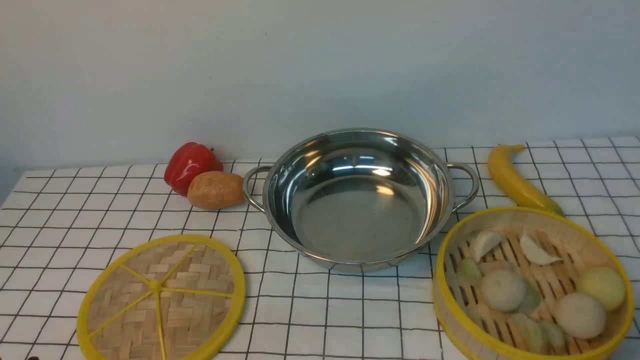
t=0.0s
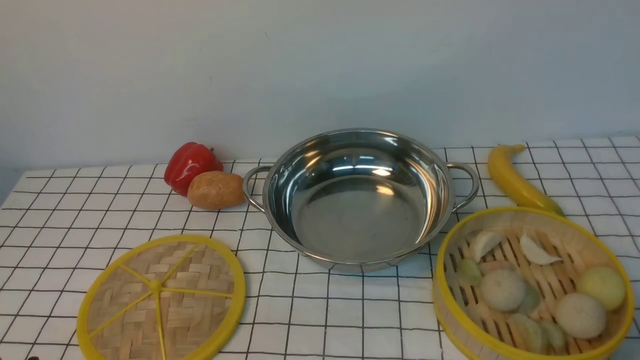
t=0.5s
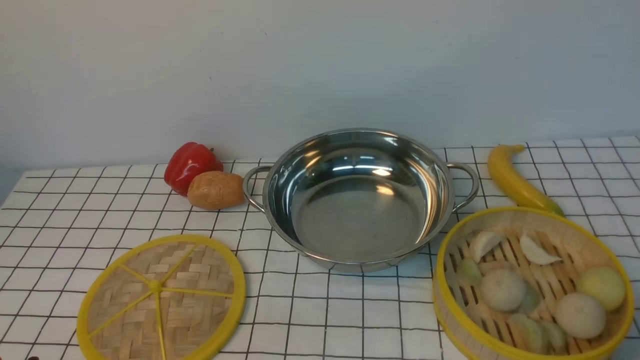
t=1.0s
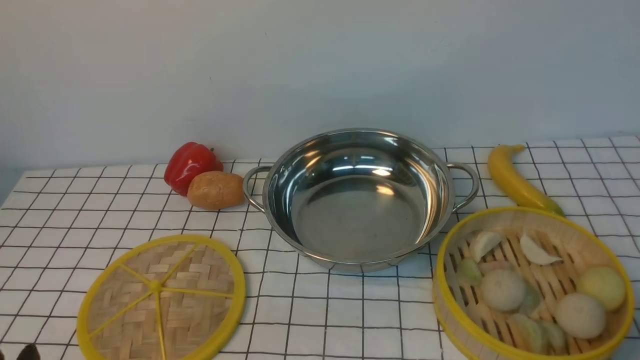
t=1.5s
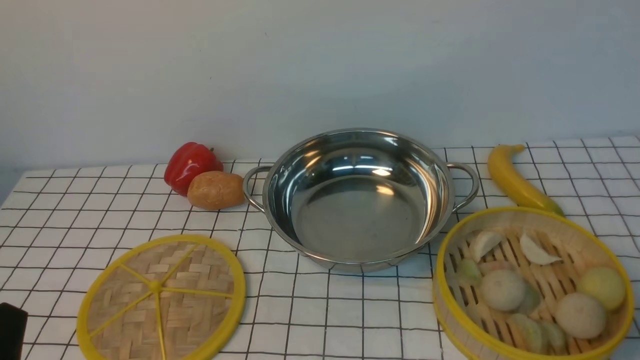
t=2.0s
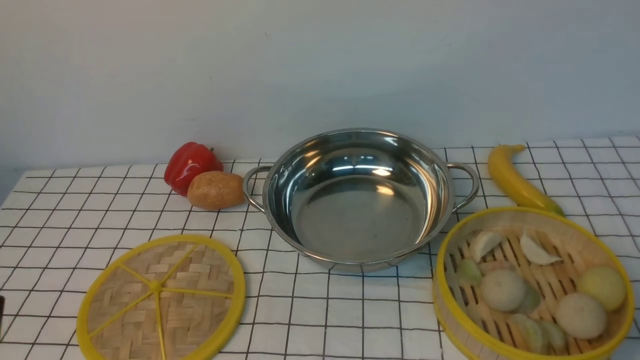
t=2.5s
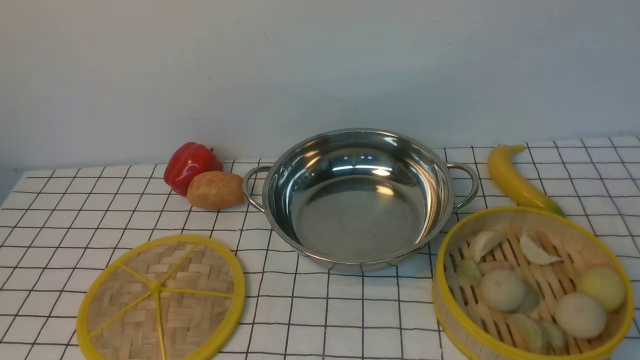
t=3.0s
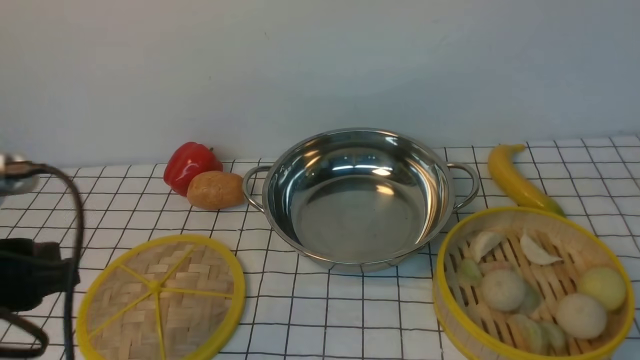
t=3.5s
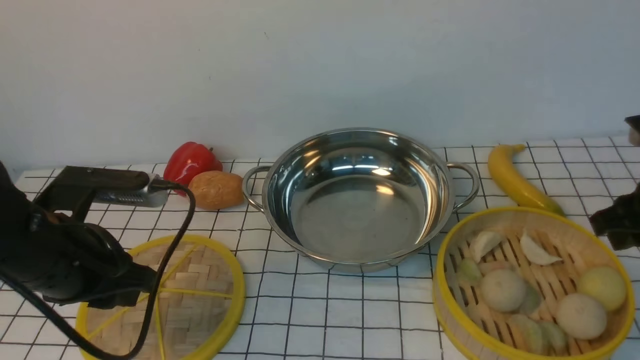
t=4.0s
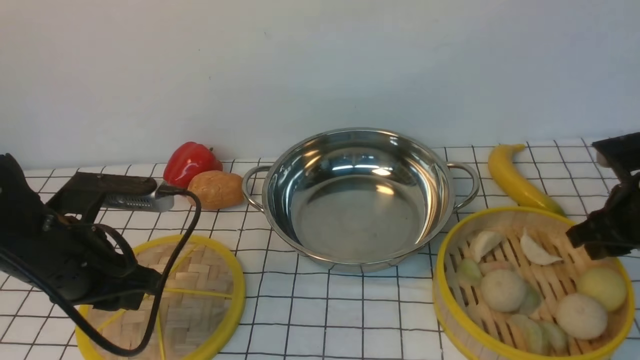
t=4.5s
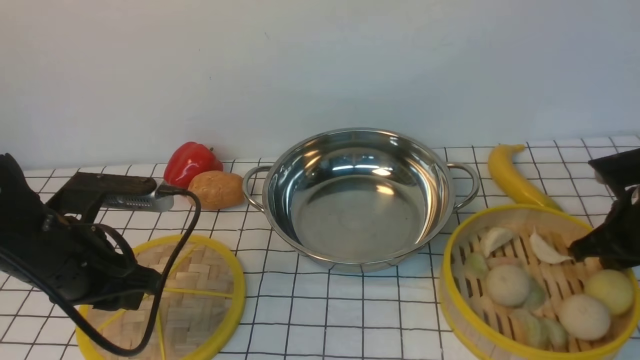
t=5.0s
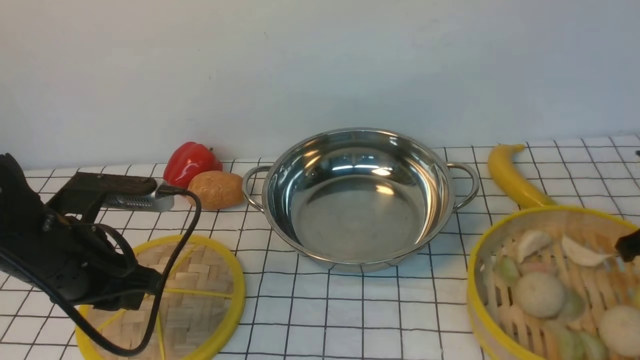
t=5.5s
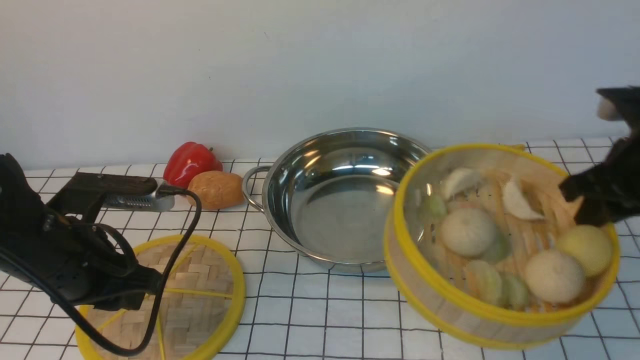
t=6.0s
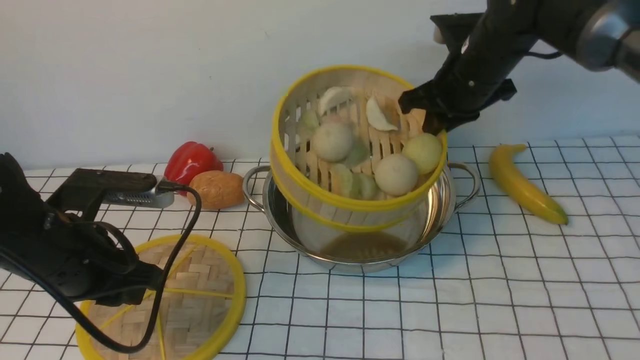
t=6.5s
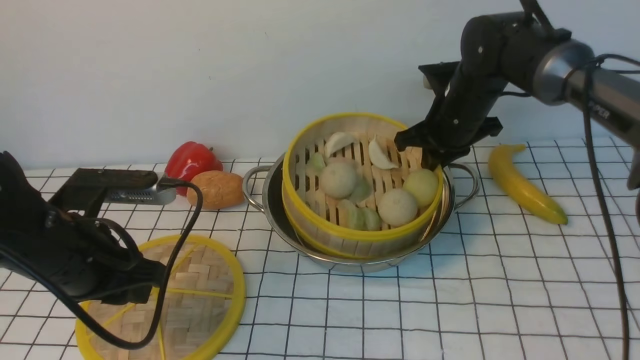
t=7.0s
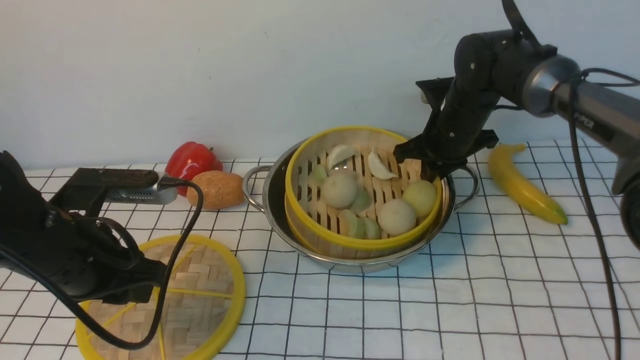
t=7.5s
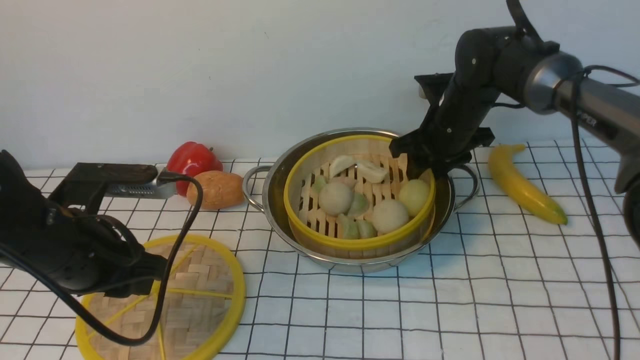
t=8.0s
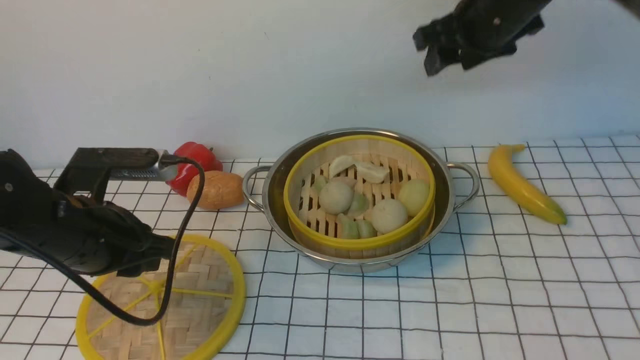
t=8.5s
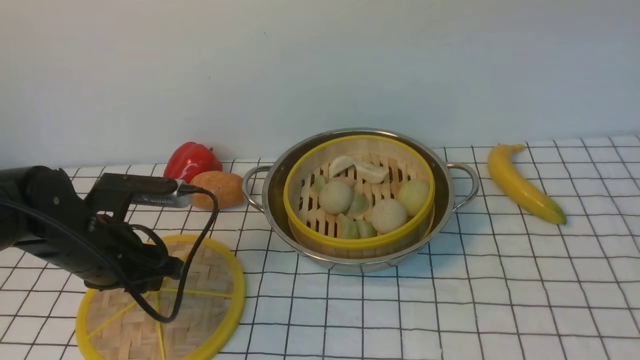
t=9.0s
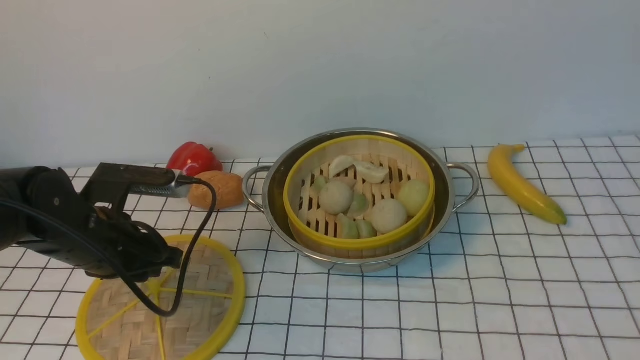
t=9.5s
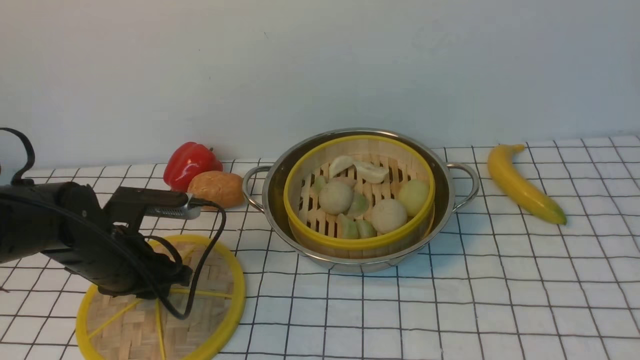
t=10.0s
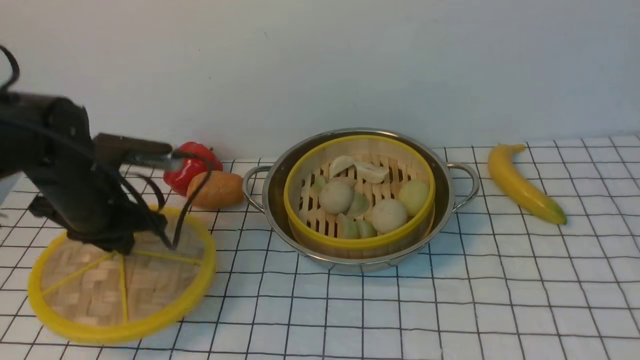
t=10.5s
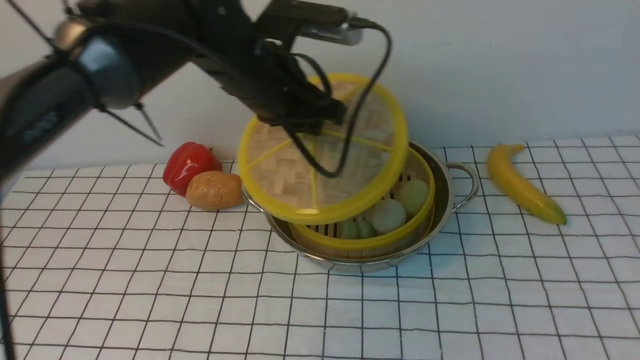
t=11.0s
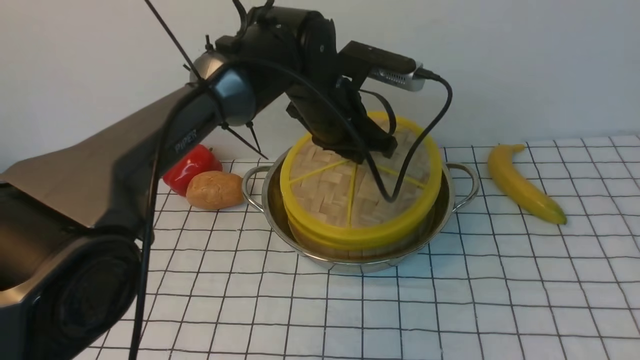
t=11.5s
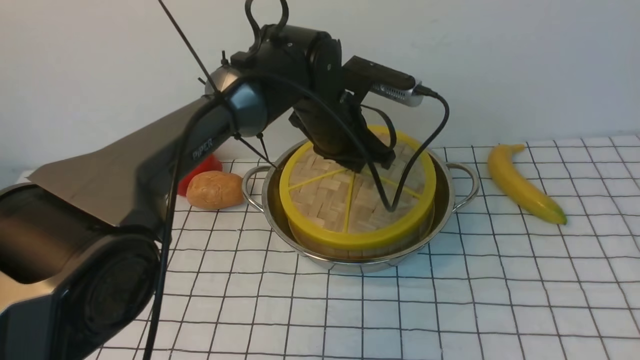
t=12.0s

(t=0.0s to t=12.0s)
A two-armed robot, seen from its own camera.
Task of the whole recording: place the steamer in the pot on the white tablecloth, and put the lid on the steamer.
Step, t=0.0s - t=5.0s: use the right arm to lift the steamer closest to it.
Step, t=5.5s - t=8.0s: use the right arm to put the steamer into the iron steamer pot in the middle.
t=2.0s - t=4.0s: Both grippers move forward, some 20 cm.
t=4.0s - t=6.0s: The right gripper moves about 5 cm, and closes up.
t=6.0s - t=8.0s: The right gripper moves forward, to the left and downward, approximately 20 cm, and opens up.
t=8.0s - t=10.0s: The left gripper is displaced downward and forward by approximately 10 cm. The right gripper travels backward and upward by approximately 50 cm.
t=10.0s - t=12.0s: The left gripper moves to the right and forward, roughly 25 cm.

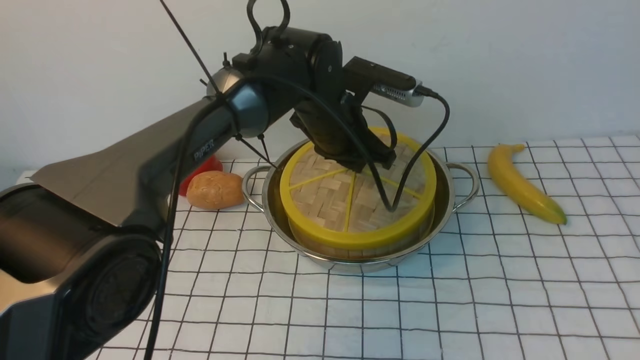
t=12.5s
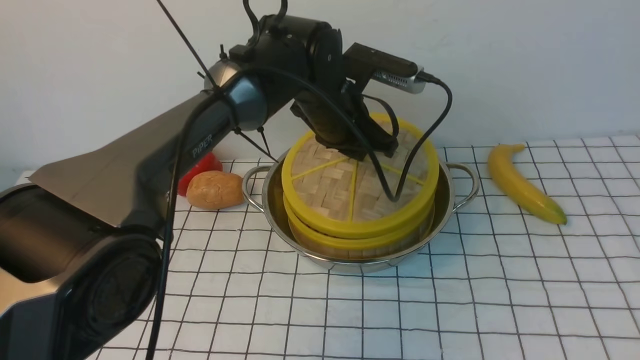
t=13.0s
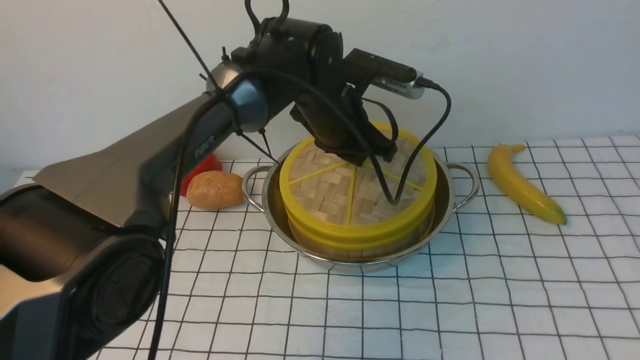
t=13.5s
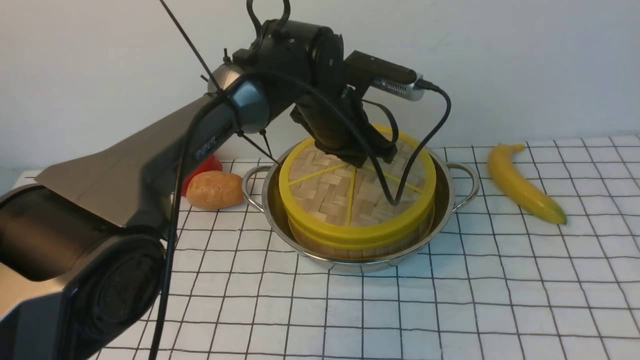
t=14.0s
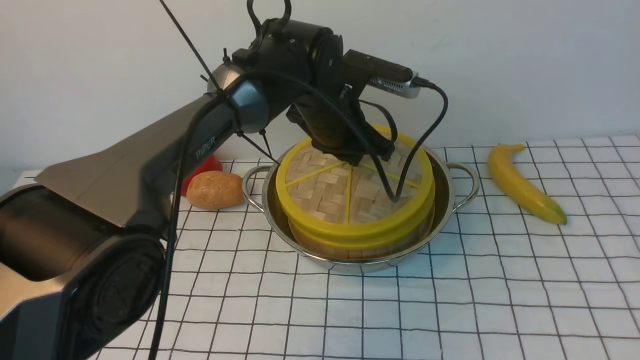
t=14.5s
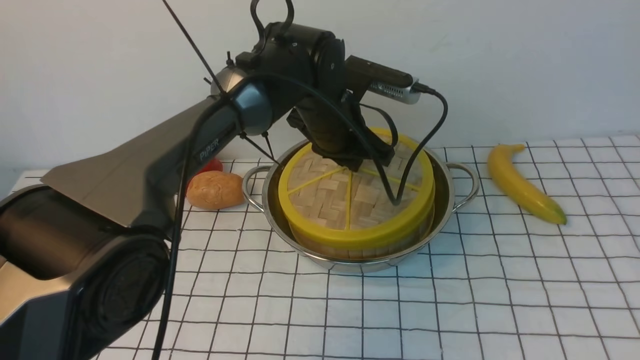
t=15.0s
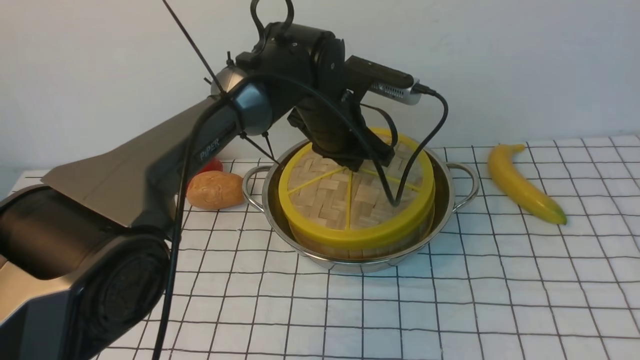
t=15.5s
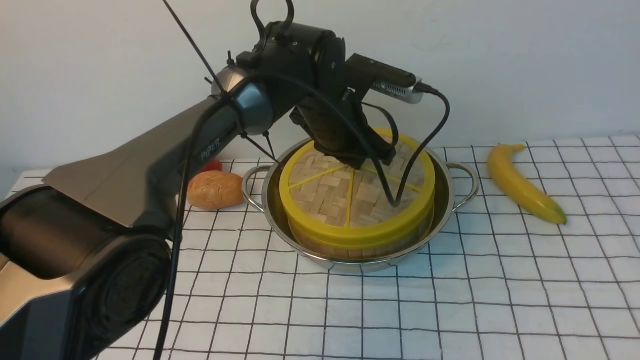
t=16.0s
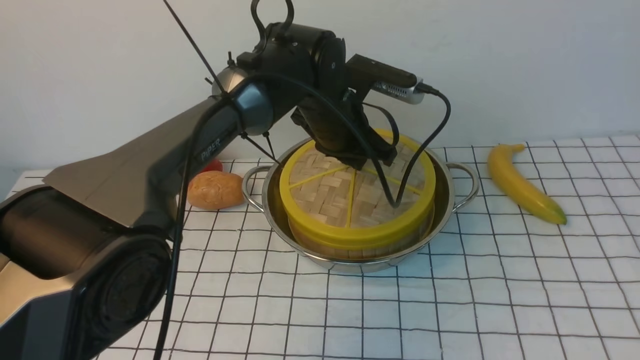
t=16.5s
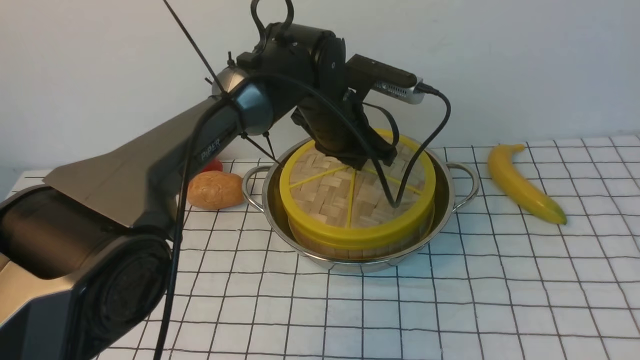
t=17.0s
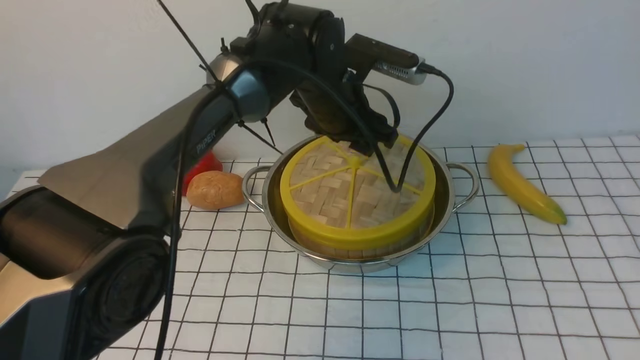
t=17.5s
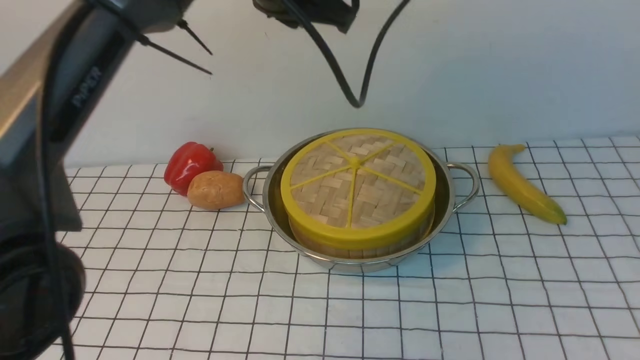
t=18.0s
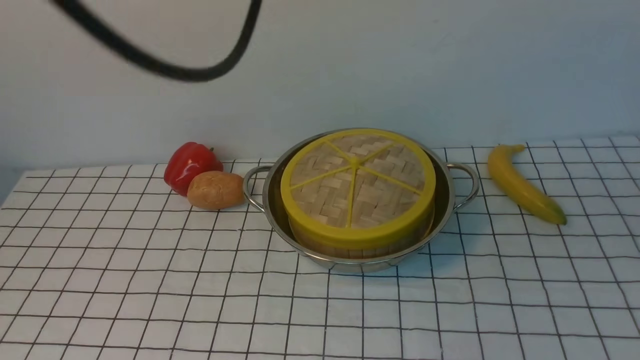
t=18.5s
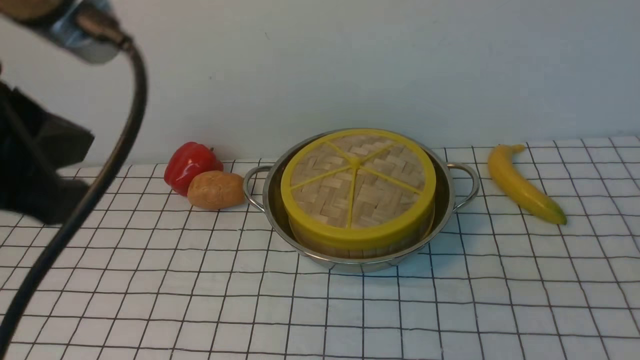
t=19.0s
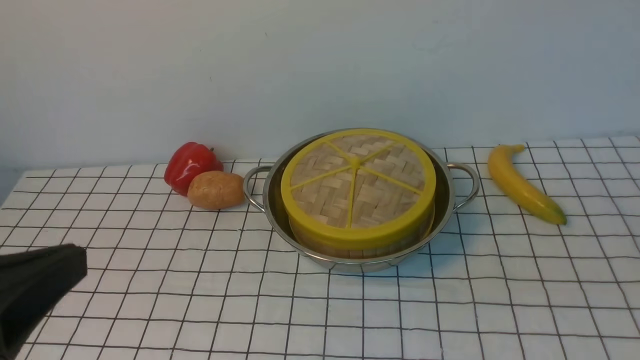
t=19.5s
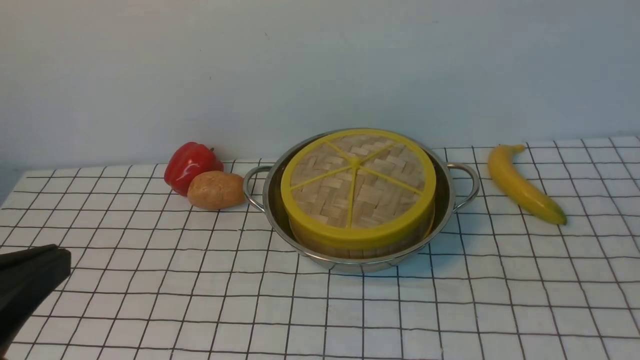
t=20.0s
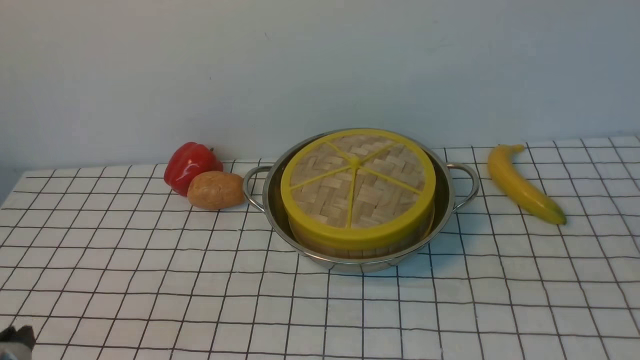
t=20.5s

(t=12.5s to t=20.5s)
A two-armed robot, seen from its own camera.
Task of the whole recording: place the steamer in the pot on the white tablecloth, and put the lid on the steamer.
Step, t=12.5s - t=17.5s: use the left arm to place the steamer lid on the steamer.
t=12.5s - t=16.5s: Neither gripper changes place.
t=16.5s - t=18.5s: The right gripper shifts roughly 20 cm downward, and closes up. The left gripper moves upward, backward and to the left, approximately 35 cm, and closes.
t=18.5s - t=20.5s: The left gripper moves downward, backward and to the left, roughly 40 cm.
